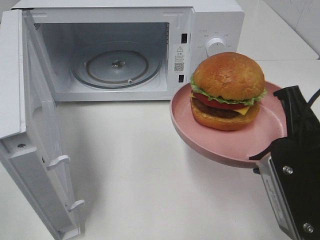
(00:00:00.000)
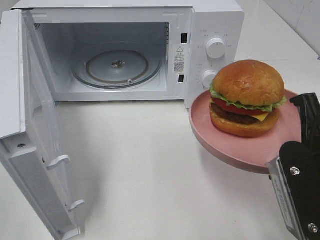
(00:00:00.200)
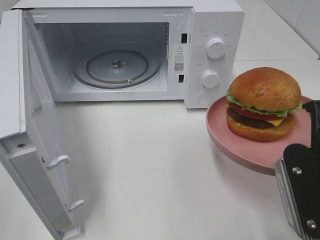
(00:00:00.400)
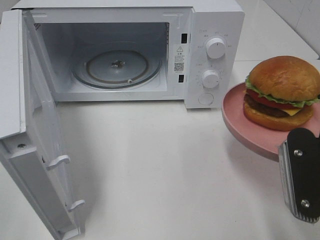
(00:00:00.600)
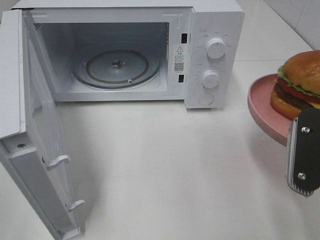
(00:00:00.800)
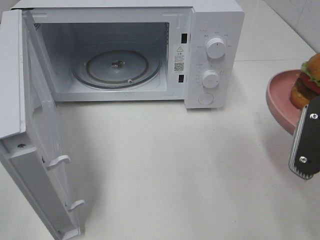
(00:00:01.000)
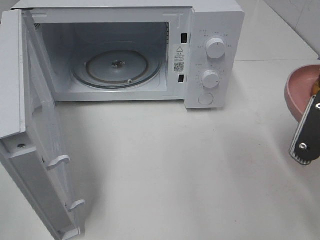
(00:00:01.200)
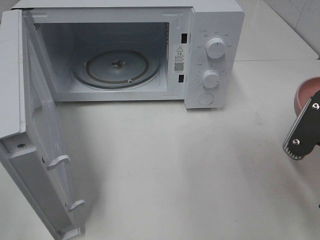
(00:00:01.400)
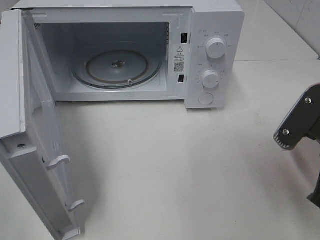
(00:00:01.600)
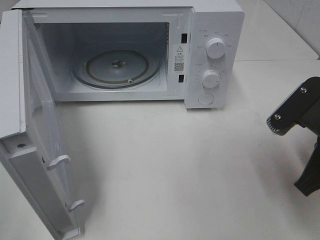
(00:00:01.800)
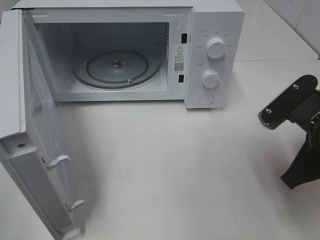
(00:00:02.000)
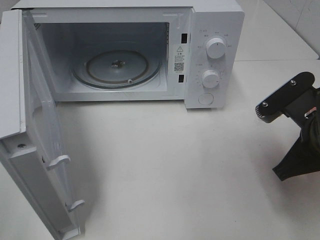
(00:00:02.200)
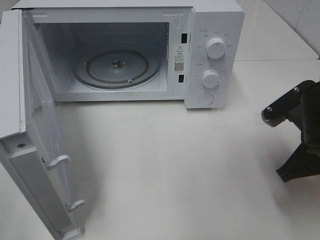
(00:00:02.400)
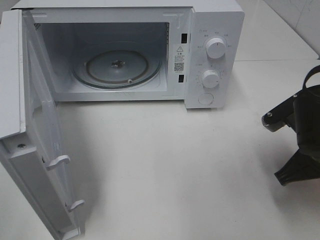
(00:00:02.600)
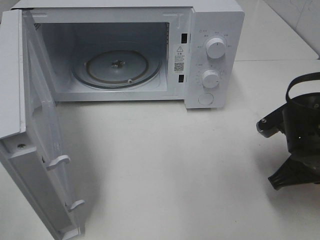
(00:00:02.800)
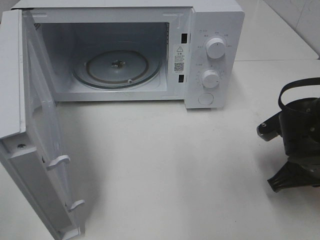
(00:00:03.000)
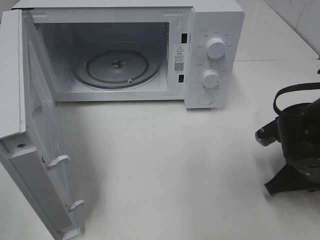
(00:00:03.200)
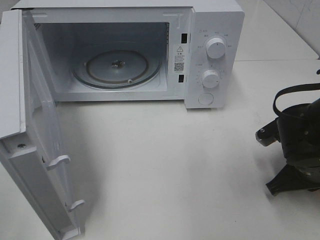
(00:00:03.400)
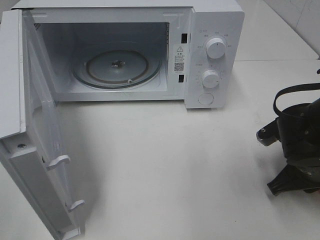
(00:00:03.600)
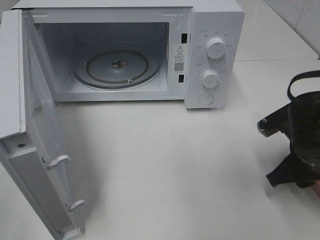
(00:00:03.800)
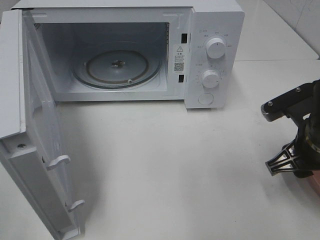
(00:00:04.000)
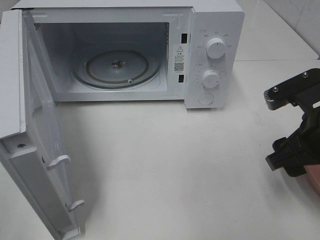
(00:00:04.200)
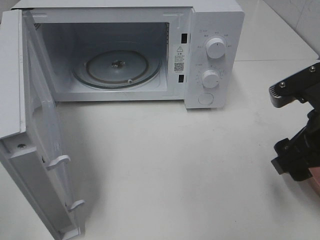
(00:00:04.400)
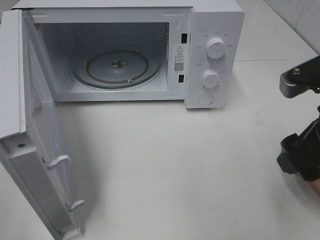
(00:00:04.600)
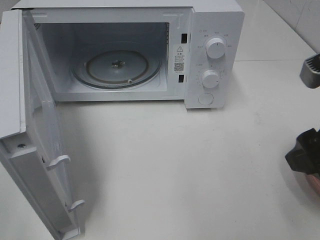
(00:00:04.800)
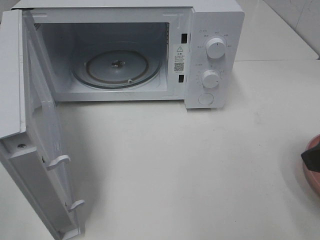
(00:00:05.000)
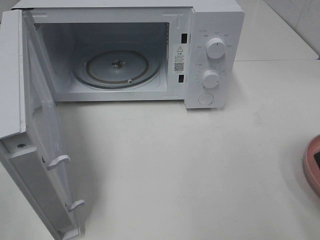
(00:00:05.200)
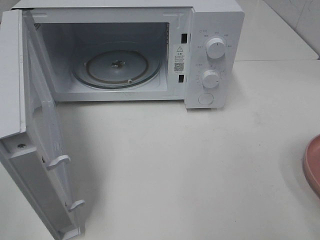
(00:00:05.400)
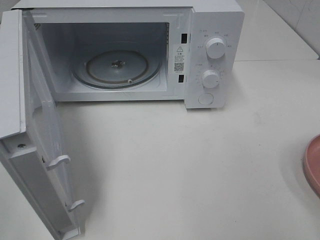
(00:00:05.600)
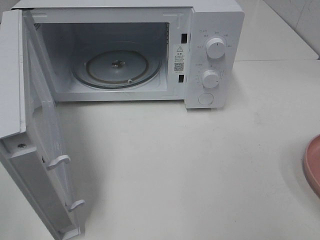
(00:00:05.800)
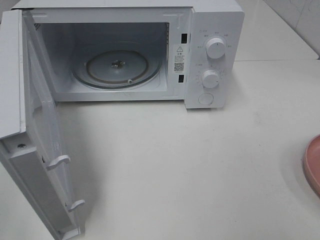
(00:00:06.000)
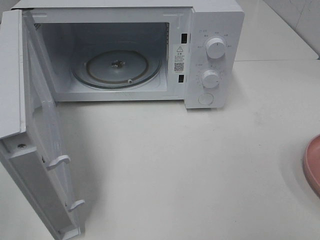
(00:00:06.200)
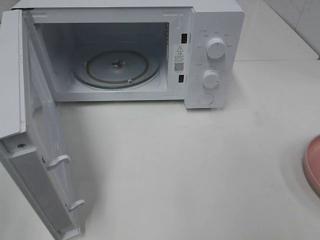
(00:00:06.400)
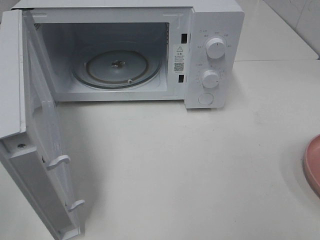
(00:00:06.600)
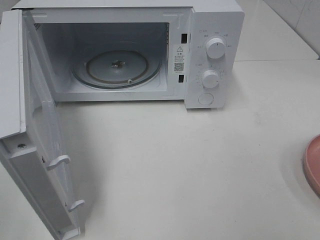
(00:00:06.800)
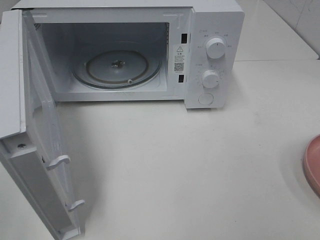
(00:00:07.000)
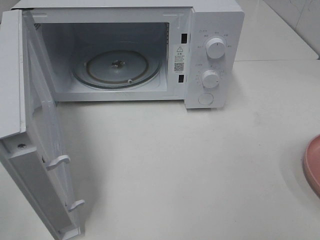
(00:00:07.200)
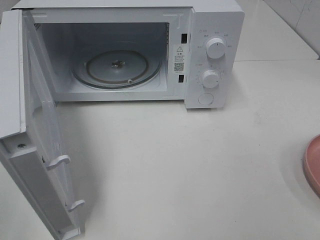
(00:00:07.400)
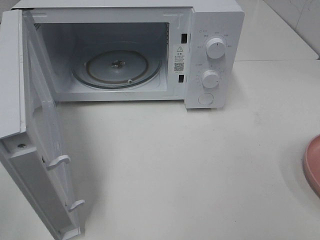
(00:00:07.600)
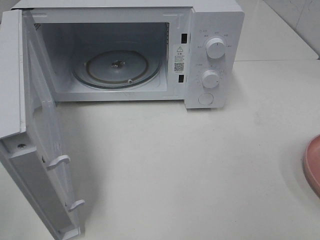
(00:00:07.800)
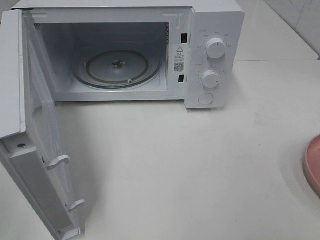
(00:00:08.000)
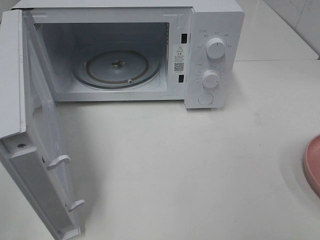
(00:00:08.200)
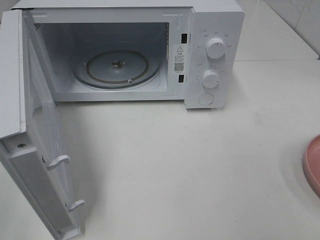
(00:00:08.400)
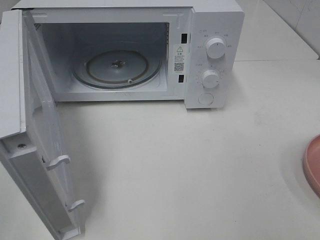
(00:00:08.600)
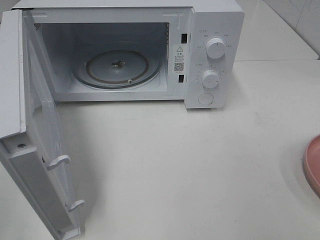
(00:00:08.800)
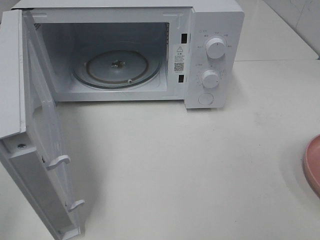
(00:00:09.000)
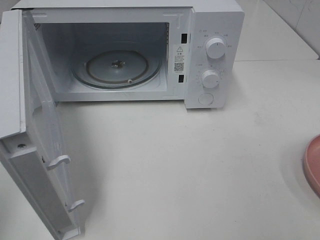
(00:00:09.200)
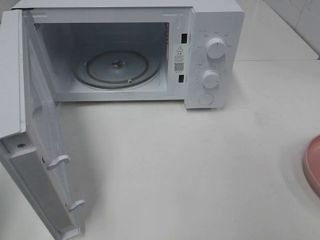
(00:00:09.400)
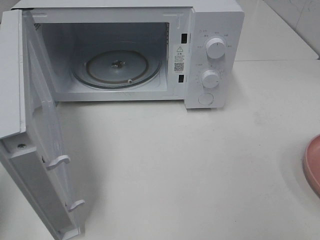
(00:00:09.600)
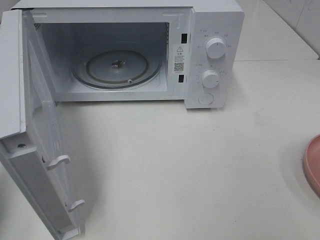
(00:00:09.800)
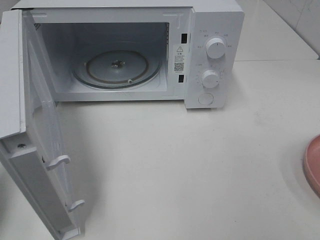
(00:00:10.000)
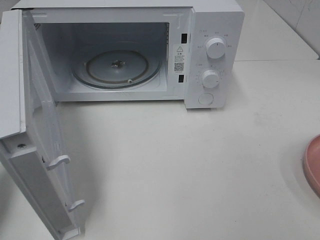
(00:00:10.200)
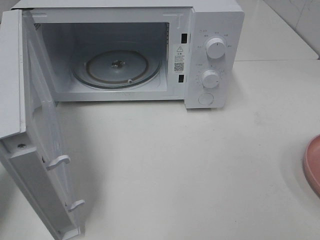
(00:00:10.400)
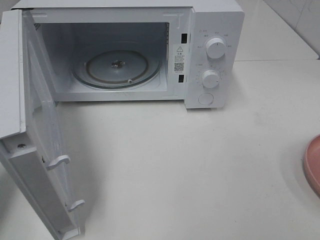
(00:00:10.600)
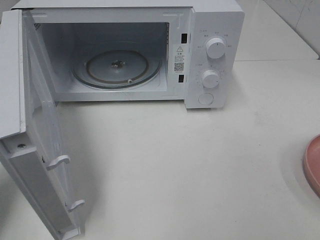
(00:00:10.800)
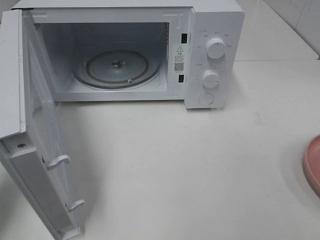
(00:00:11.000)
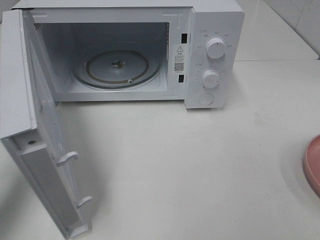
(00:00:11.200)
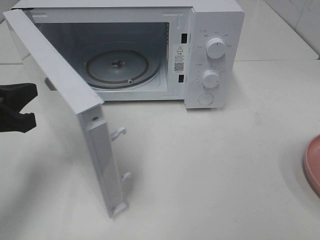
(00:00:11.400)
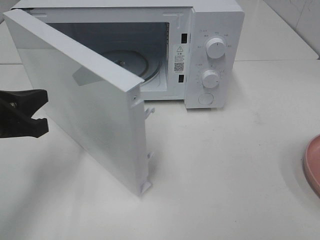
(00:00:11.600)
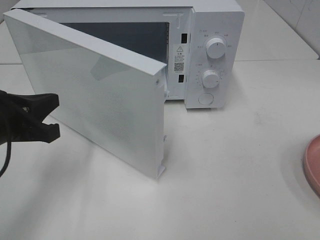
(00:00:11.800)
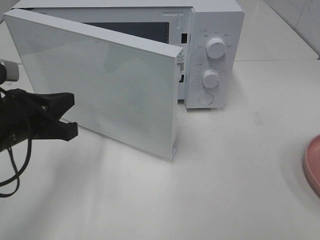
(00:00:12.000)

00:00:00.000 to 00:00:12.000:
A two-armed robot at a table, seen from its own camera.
Task of the whole recording: Heat the burger.
Step, 00:00:00.000 to 00:00:03.600: Right hand: place the plate on the table.
00:00:00.000 to 00:00:01.600: The right gripper moves approximately 5 cm.
00:00:01.600 to 00:00:03.000: The right gripper shifts roughly 10 cm downward and forward.
00:00:03.000 to 00:00:04.400: The right gripper travels upward by roughly 10 cm, and opens up.
00:00:04.400 to 00:00:06.000: The right gripper is displaced backward, upward and to the right by roughly 20 cm.
00:00:09.000 to 00:00:10.400: The left gripper heads forward and downward, covering some 15 cm, and closes up.
00:00:10.400 to 00:00:12.000: The left gripper goes some 15 cm to the right, downward and forward.

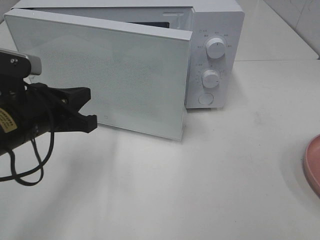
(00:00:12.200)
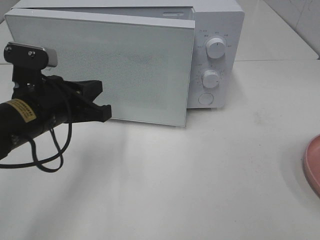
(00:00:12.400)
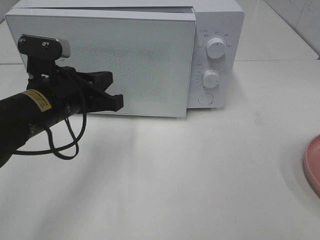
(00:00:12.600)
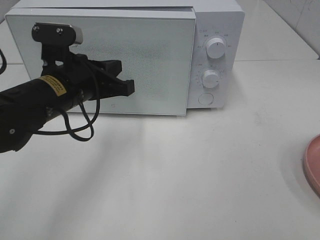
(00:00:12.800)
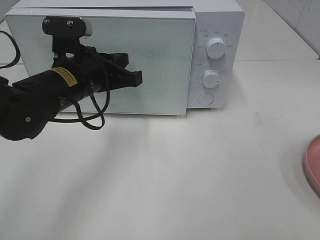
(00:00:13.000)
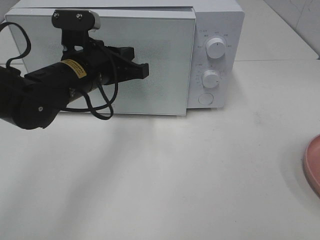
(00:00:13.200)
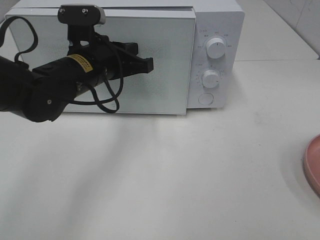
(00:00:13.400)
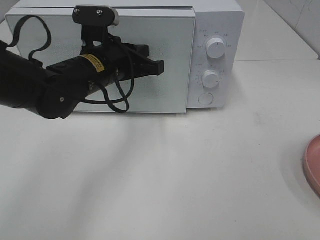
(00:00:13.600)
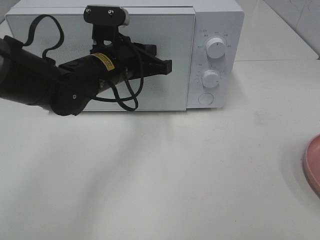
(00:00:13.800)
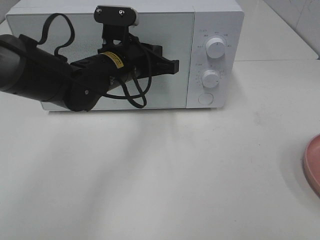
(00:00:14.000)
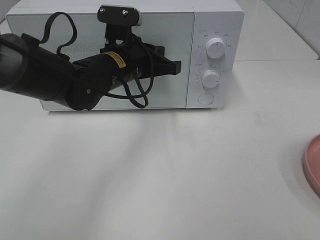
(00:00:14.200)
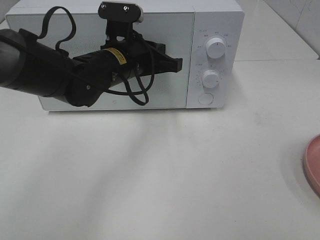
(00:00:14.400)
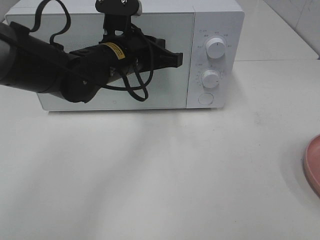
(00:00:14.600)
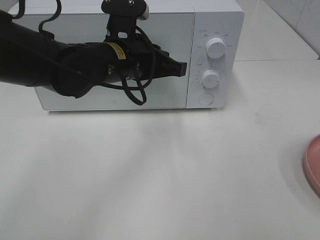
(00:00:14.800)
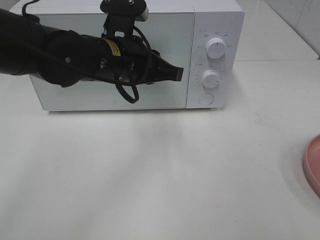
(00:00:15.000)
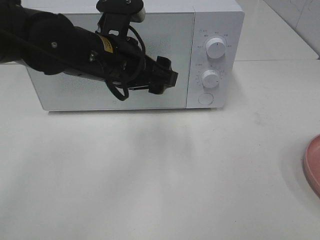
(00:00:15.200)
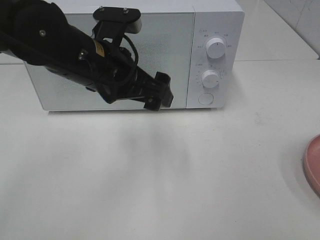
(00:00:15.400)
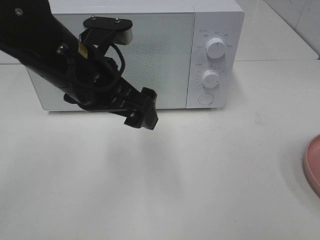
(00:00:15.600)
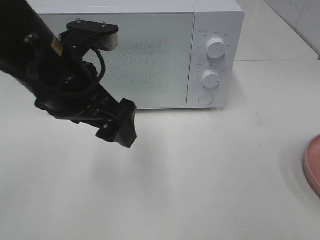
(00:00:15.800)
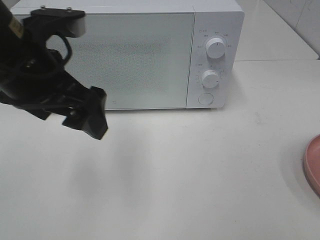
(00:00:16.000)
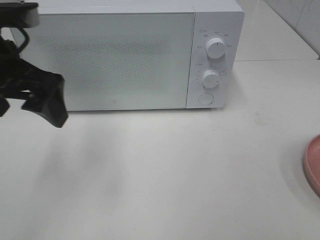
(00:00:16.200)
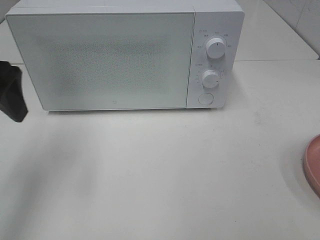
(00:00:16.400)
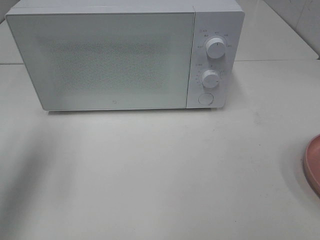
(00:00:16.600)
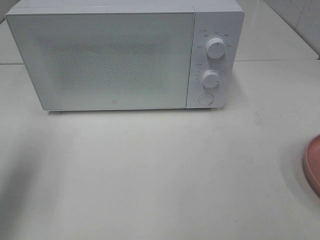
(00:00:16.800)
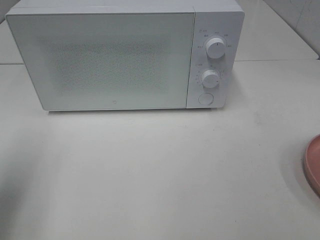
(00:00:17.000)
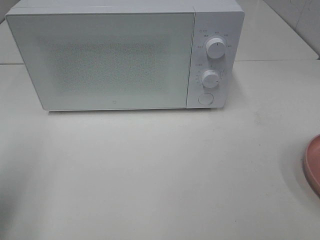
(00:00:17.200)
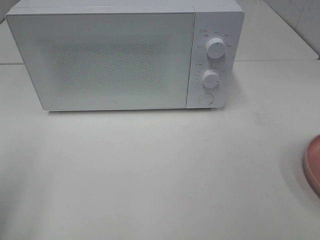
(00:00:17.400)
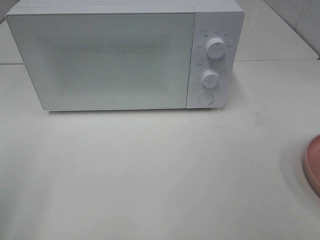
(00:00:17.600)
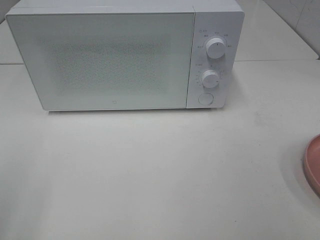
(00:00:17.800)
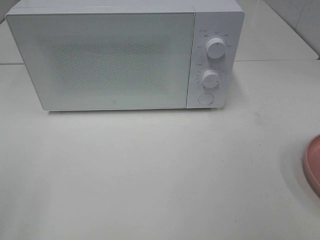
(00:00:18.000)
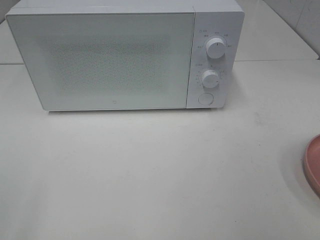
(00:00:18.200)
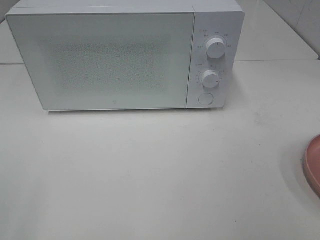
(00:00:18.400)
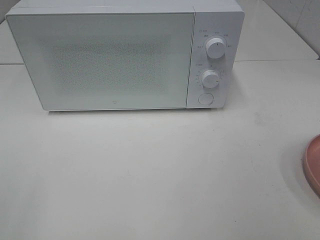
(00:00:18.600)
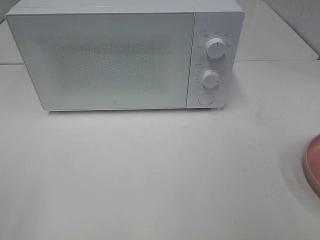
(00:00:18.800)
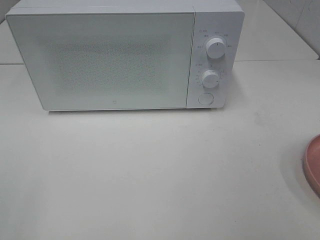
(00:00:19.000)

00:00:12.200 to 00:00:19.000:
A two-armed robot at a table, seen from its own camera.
Task of the whole recording: Heat the burger.
Step, 00:00:12.200 to 00:00:14.600: Left hand: close the microwave door.
00:00:12.200 to 00:00:13.600: The left gripper shifts approximately 15 cm forward and to the right.
00:00:13.600 to 00:00:15.000: The left gripper ends up roughly 5 cm from where it was.
00:00:15.000 to 00:00:16.200: The left gripper is displaced to the left, upward and backward by about 15 cm, and opens.
00:00:16.200 to 00:00:17.600: The left gripper goes roughly 20 cm backward and to the left.
